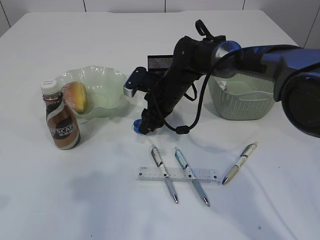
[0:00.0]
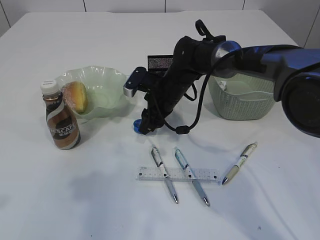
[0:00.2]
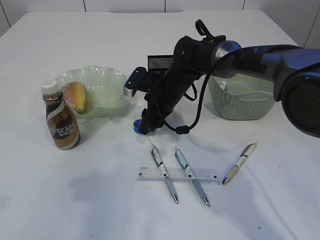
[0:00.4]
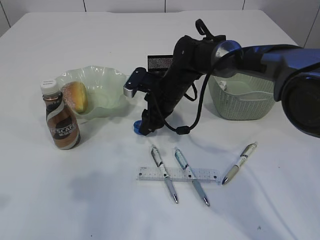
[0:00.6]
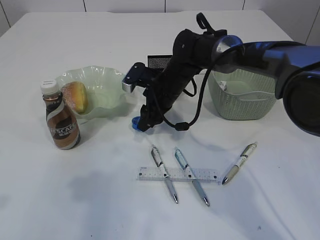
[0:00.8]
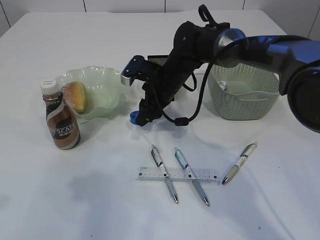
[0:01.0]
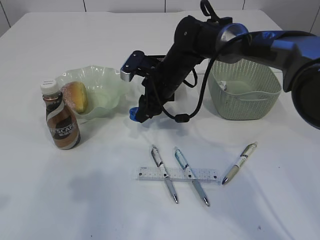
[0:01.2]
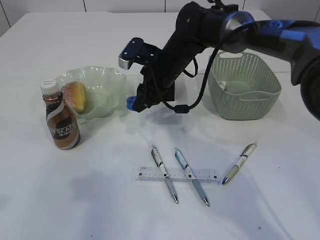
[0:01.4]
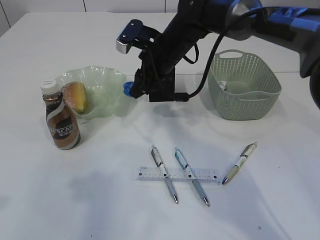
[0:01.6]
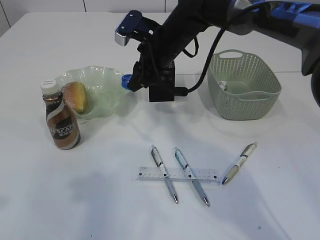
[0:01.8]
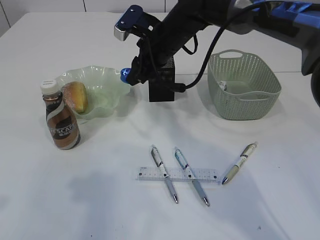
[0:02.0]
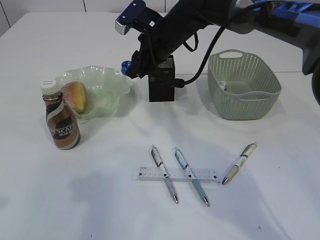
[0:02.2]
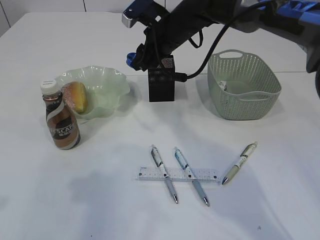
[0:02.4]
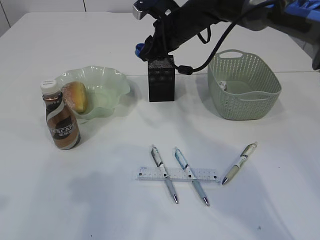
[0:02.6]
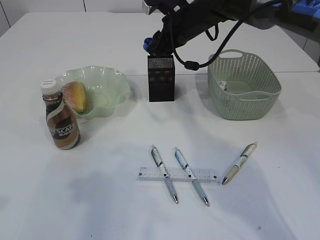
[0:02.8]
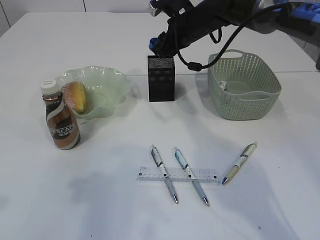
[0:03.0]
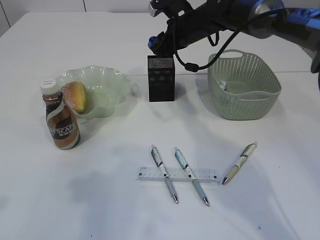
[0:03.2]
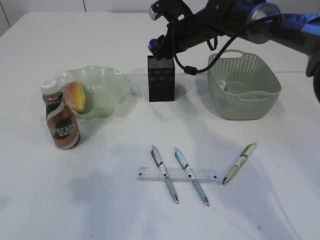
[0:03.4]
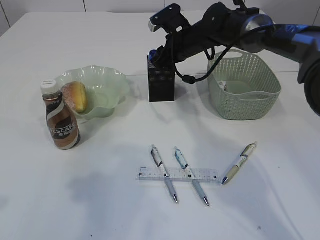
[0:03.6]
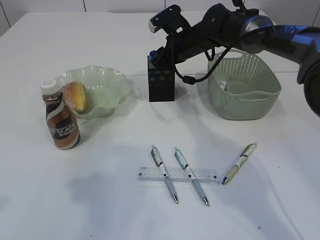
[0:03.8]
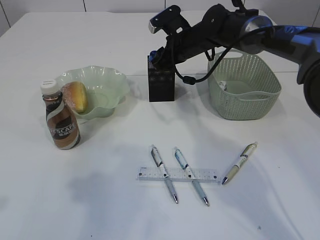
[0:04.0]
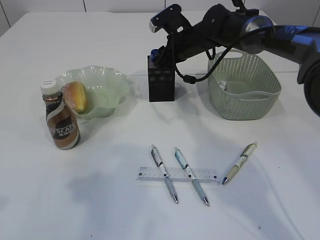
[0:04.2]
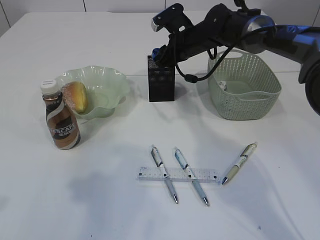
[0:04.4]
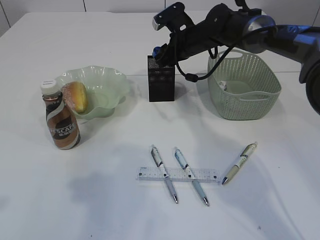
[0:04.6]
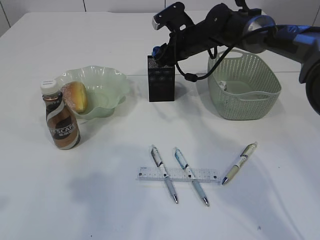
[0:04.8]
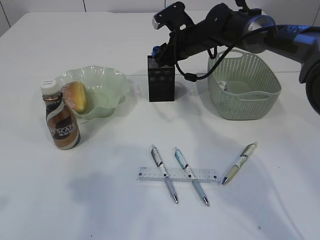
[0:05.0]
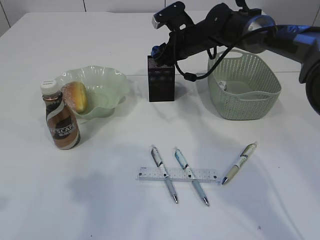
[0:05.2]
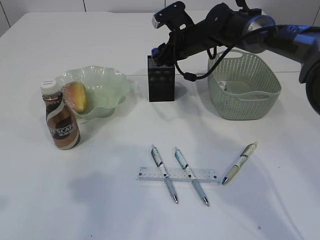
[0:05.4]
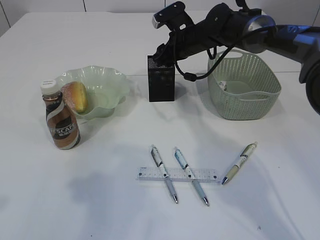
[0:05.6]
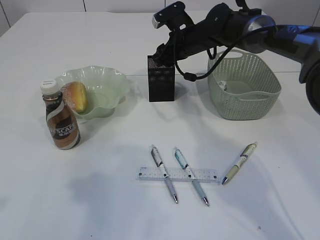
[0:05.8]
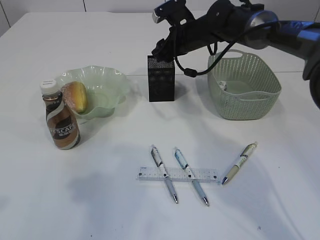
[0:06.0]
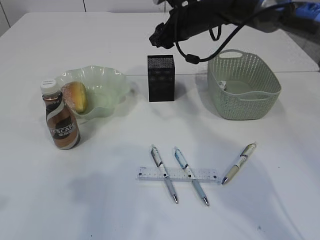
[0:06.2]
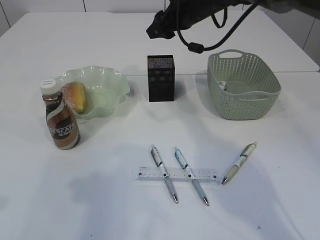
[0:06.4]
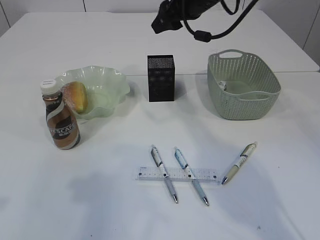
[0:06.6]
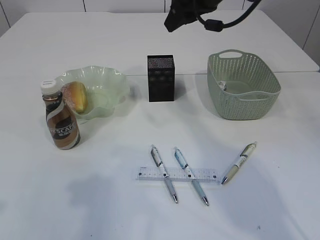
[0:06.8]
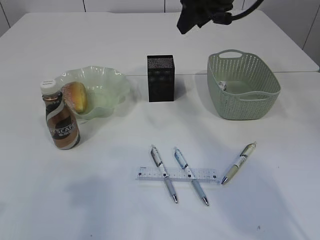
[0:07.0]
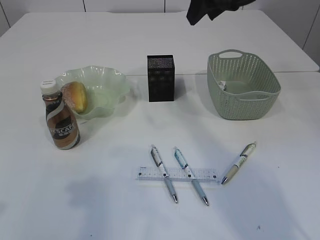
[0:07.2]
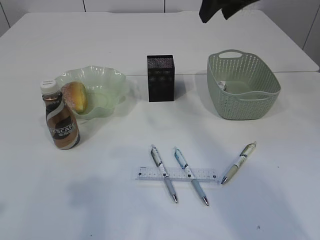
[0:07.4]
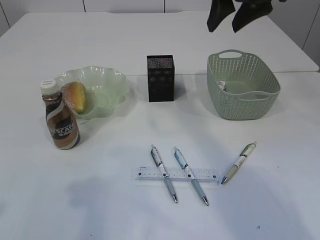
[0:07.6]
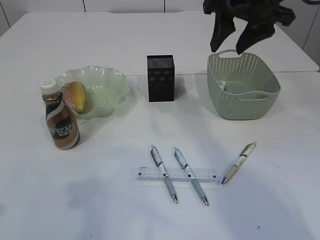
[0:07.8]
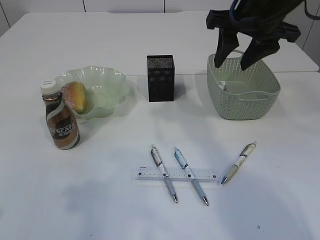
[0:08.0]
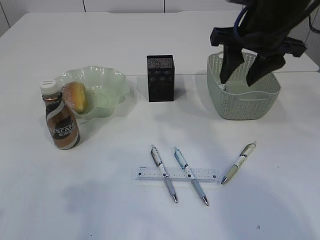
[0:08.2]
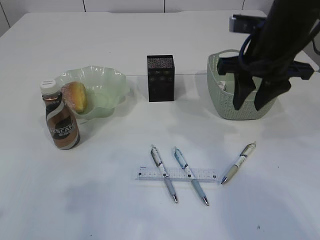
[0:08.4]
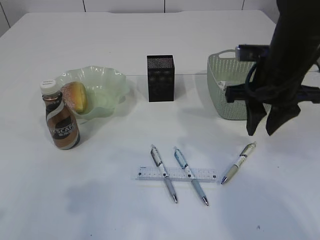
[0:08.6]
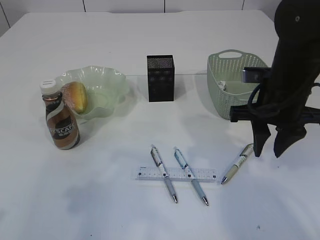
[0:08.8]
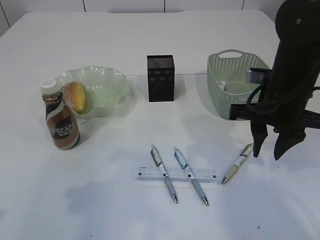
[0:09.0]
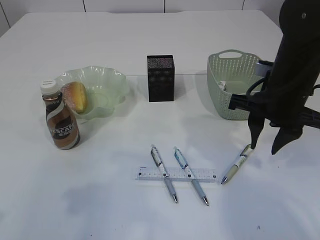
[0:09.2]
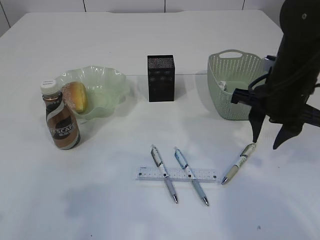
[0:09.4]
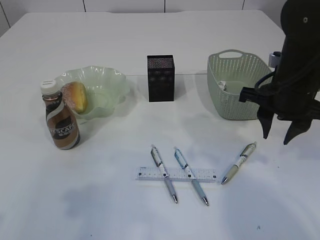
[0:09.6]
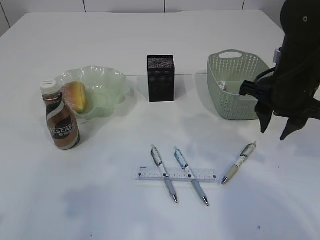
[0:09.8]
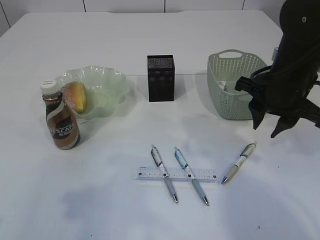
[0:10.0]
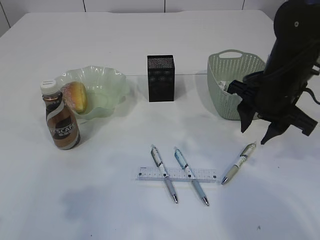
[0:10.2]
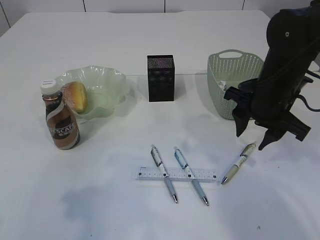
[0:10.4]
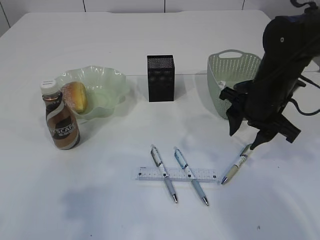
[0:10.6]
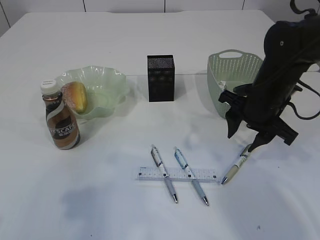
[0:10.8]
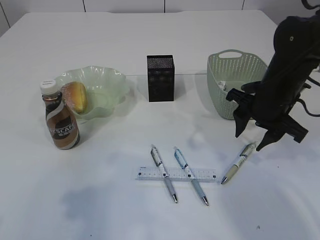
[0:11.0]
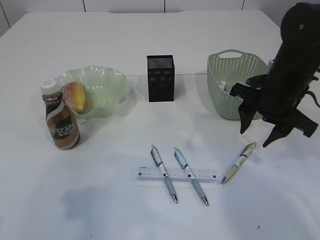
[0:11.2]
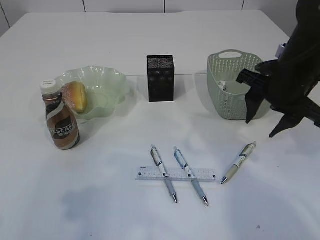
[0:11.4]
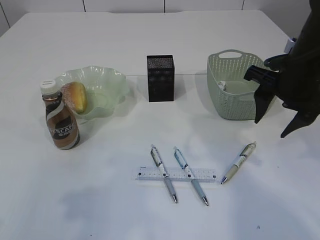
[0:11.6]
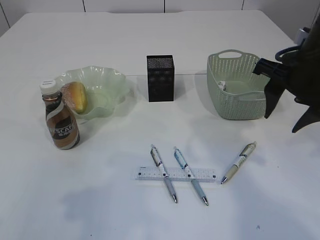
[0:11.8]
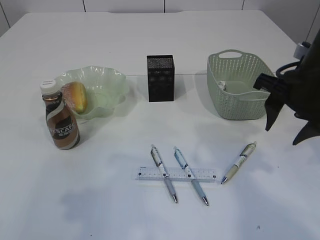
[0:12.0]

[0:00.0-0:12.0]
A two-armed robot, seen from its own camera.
Step, 0:01.6 to 0:07.0: Place the blue pencil sharpener into the pen holder.
0:00.0 to 0:01.6: The right gripper heads upward, covering roughly 10 cm.
0:01.6 to 0:03.0: The right gripper goes some 10 cm to the right and forward.
0:03.0 to 0:04.4: The grippers move only a little.
0:04.4 to 0:06.0: Neither gripper changes place.
0:06.0 to 0:07.6: The right gripper moves upward and backward, about 20 cm.
0:07.6 to 0:09.0: The right gripper heads downward and backward, covering about 15 cm.
0:10.4 to 0:12.0: The right gripper changes place by approximately 5 cm.

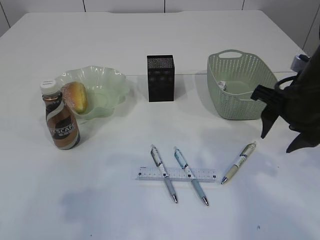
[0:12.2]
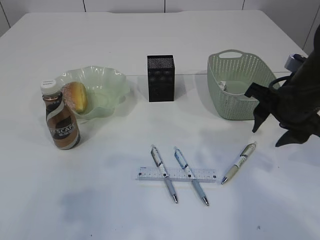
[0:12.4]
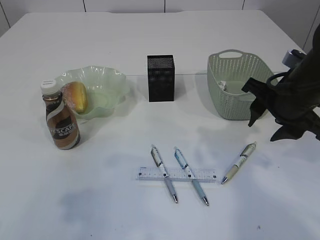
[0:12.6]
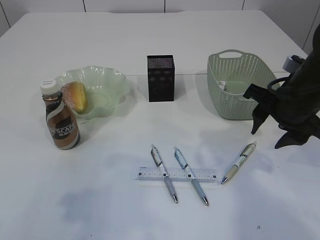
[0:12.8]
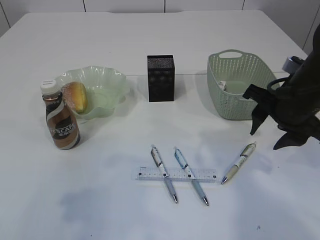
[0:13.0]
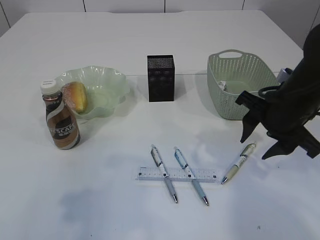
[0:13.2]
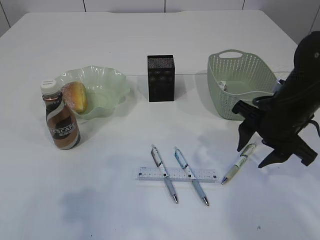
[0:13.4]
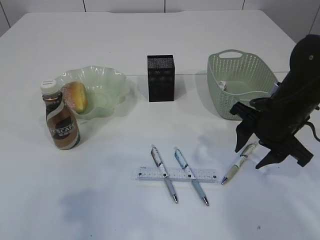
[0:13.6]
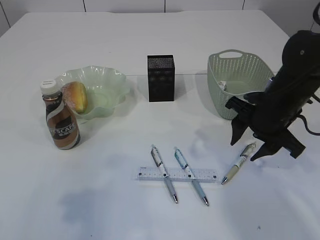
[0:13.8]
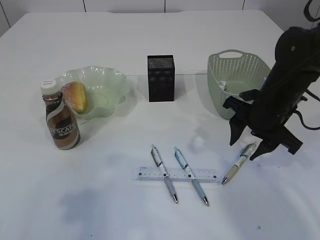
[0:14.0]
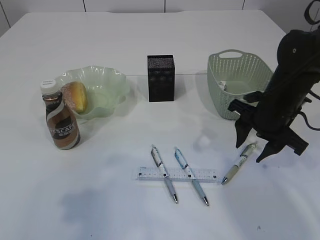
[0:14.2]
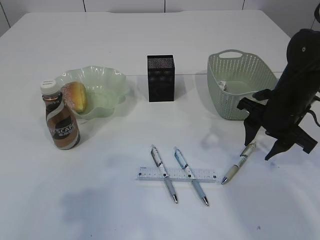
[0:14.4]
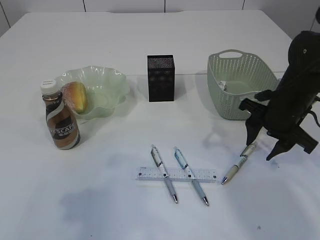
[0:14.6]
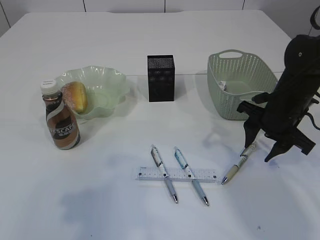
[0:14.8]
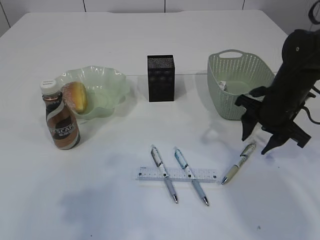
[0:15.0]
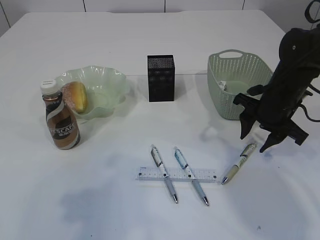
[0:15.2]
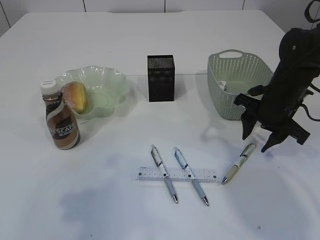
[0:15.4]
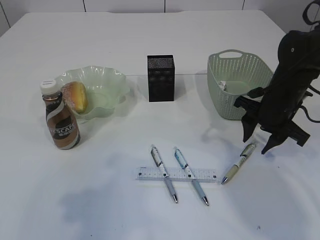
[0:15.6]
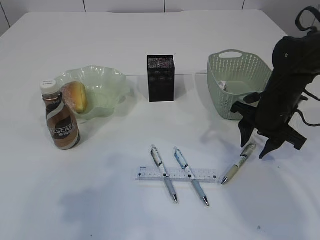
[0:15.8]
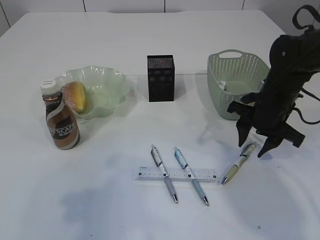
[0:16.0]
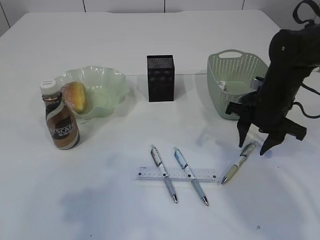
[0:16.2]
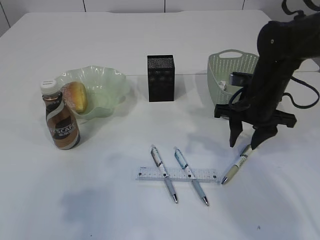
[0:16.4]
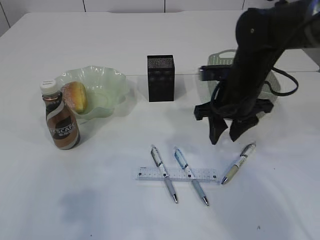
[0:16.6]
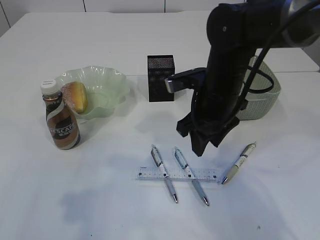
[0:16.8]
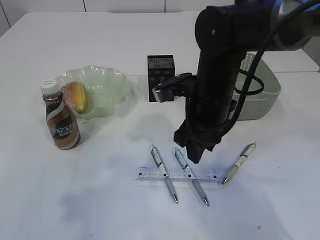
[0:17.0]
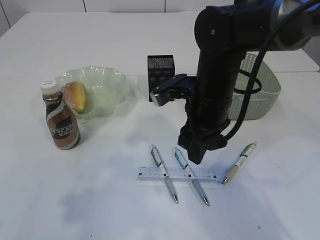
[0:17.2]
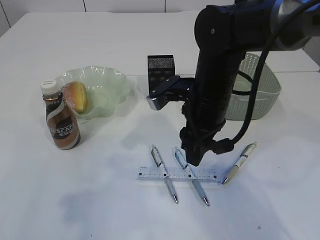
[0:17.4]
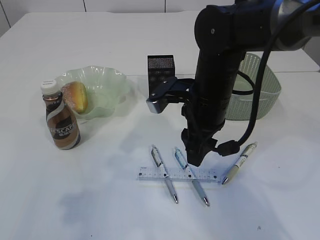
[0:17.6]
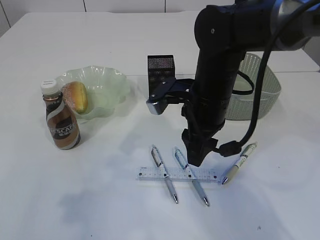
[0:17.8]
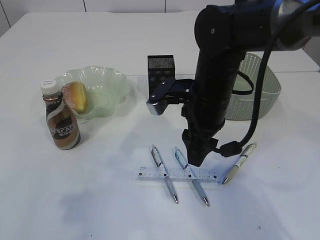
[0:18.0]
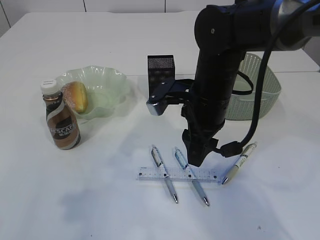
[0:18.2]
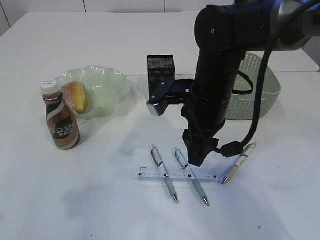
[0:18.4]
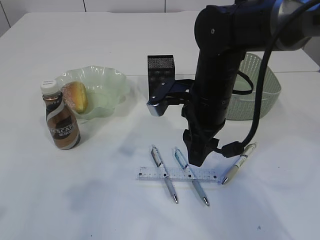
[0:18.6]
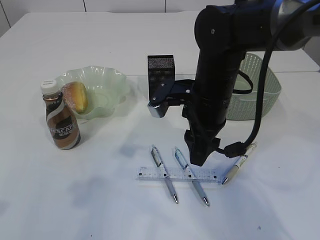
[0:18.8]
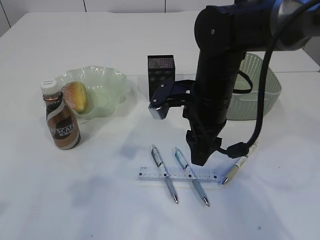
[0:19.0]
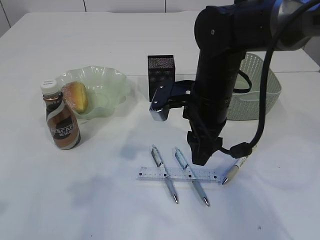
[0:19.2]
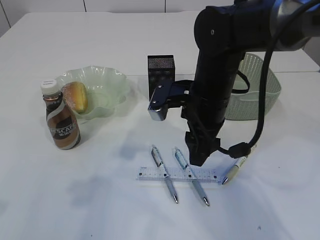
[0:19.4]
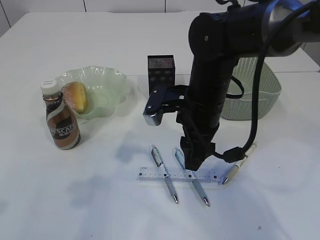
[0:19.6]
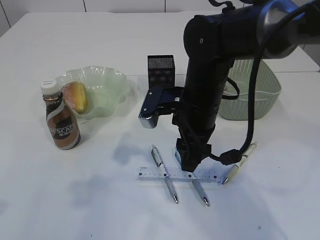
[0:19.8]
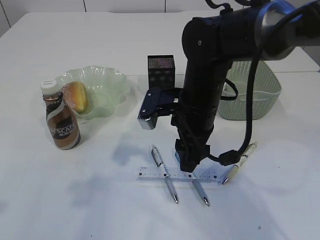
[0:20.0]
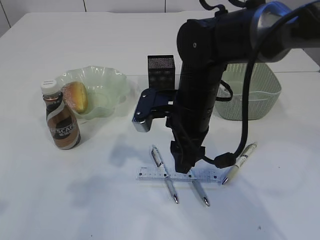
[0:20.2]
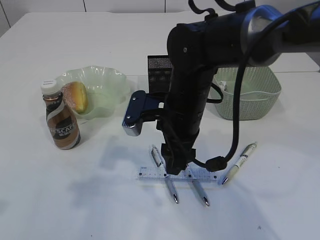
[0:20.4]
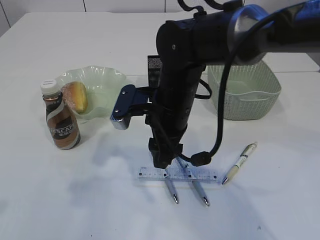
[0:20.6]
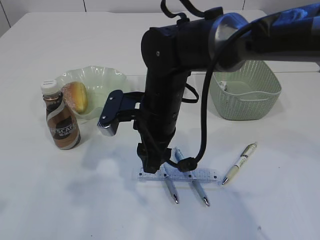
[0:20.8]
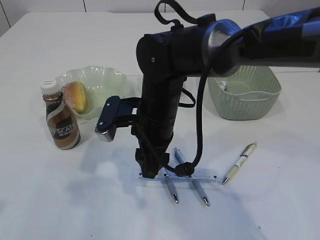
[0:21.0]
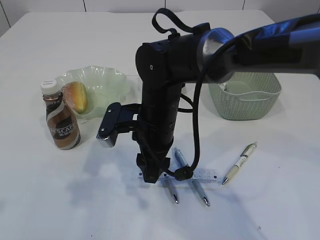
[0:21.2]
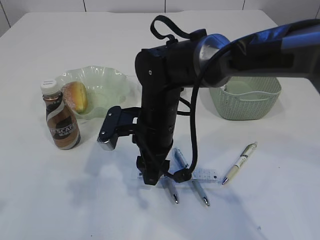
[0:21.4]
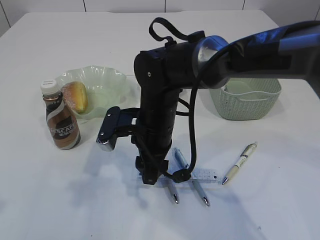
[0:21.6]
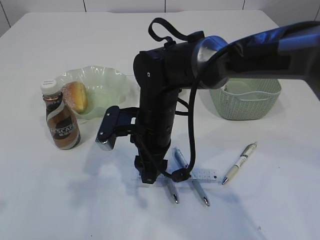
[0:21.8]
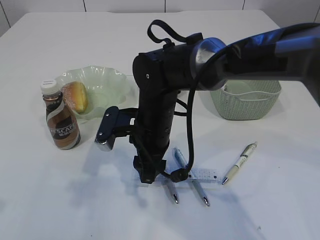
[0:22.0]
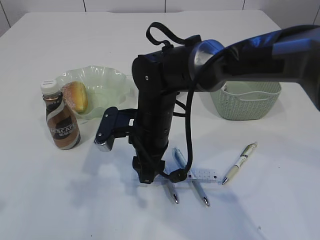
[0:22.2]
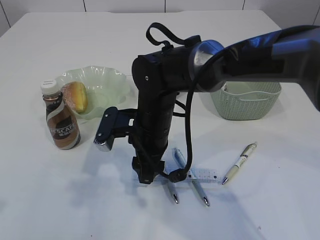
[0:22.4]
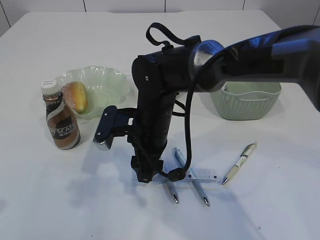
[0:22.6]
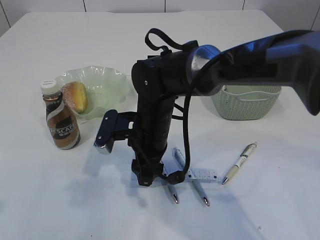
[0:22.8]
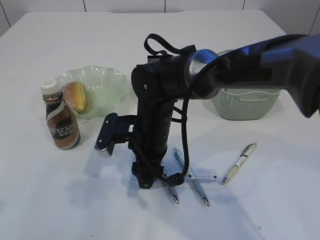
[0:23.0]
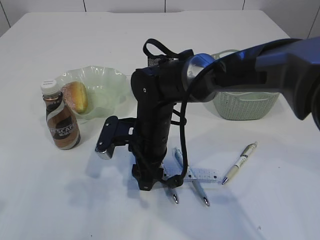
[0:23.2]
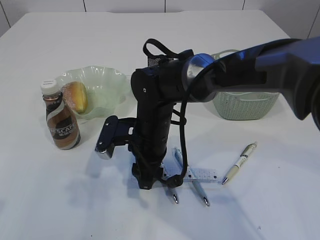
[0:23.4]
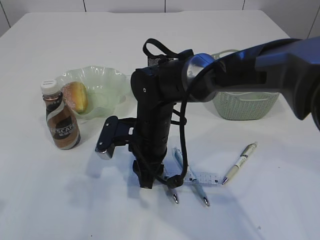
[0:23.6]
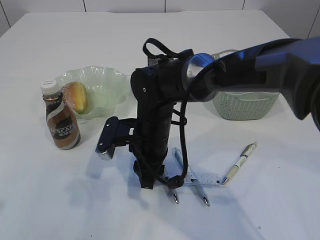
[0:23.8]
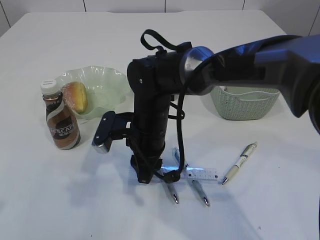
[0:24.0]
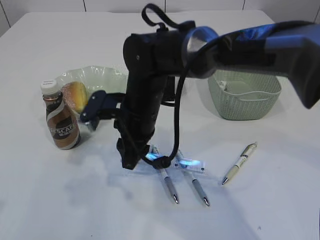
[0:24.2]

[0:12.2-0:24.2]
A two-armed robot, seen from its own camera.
0:12.2 to 0:13.8: The right gripper travels downward by about 5 cm.
0:13.8 to 0:15.2: The right gripper ends up approximately 5 cm from where it was.
0:15.2 to 0:16.6: The right gripper travels to the left by approximately 10 cm.
0:16.6 to 0:18.2: The right gripper goes about 5 cm to the left.
0:18.2 to 0:19.8: There are only small adjustments of the grippers.
0:19.8 to 0:21.2: The right gripper shifts some 5 cm to the left.
0:21.2 to 0:22.6: The grippers make only small movements.
0:22.6 to 0:24.2: The right gripper closes its fingers.
